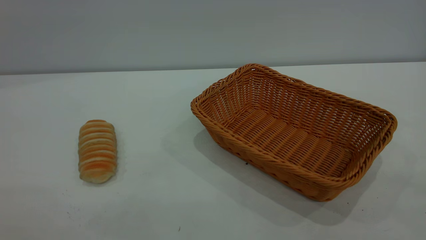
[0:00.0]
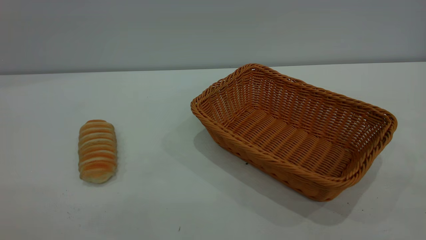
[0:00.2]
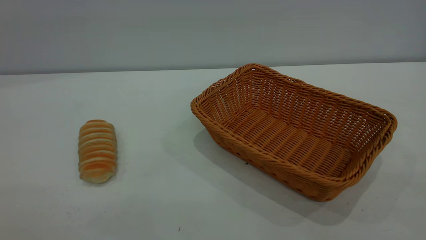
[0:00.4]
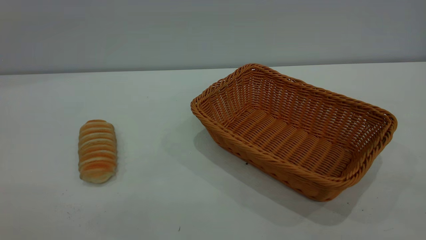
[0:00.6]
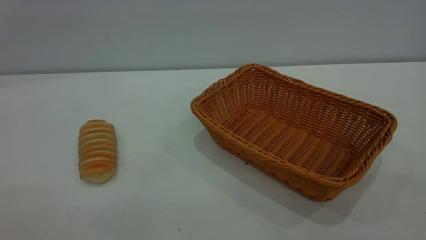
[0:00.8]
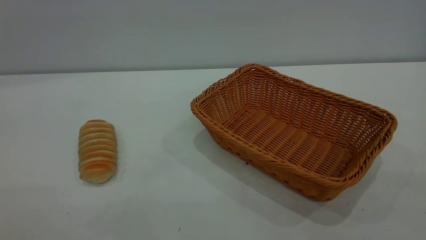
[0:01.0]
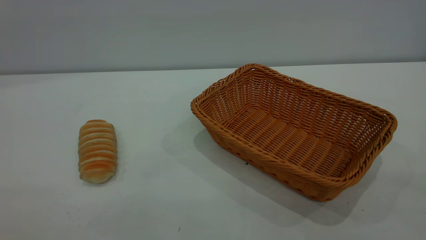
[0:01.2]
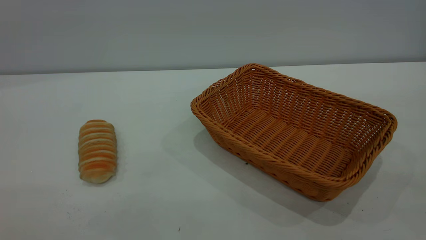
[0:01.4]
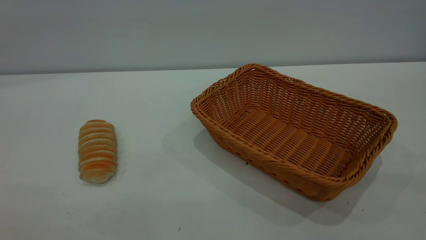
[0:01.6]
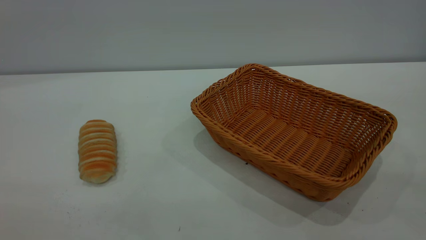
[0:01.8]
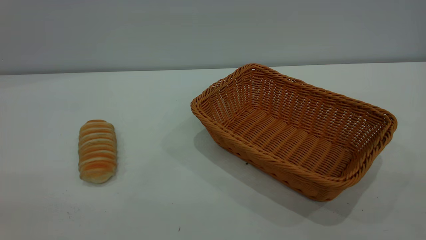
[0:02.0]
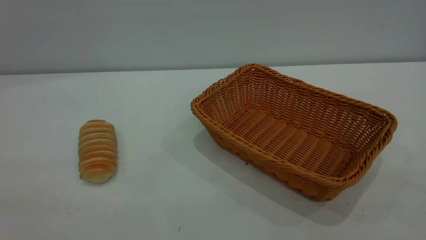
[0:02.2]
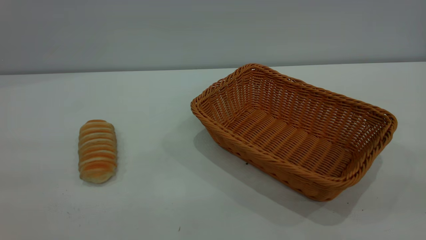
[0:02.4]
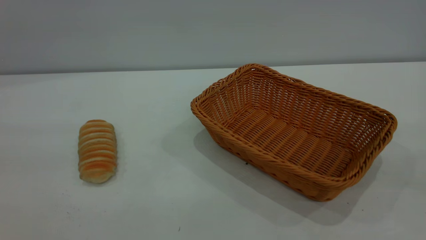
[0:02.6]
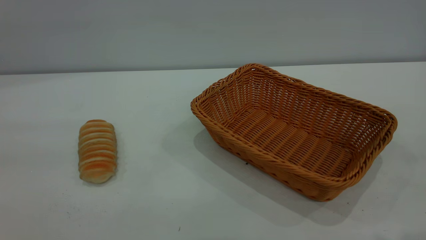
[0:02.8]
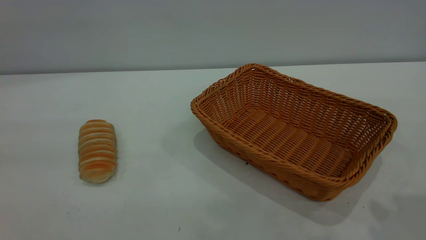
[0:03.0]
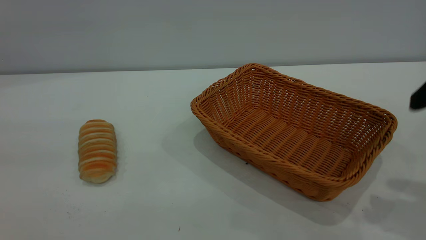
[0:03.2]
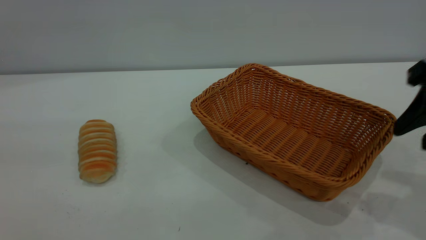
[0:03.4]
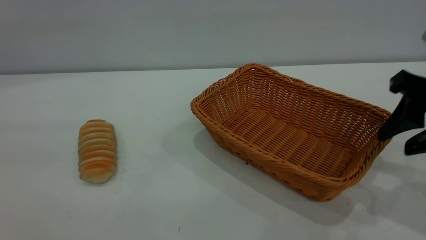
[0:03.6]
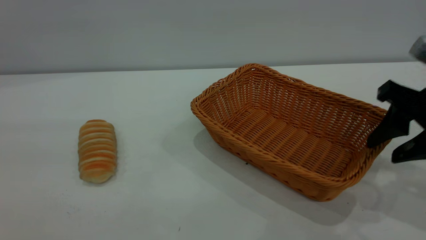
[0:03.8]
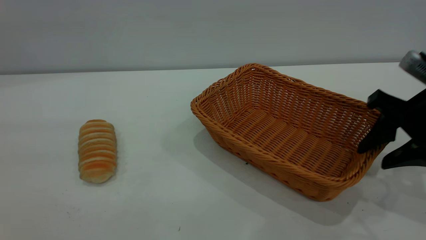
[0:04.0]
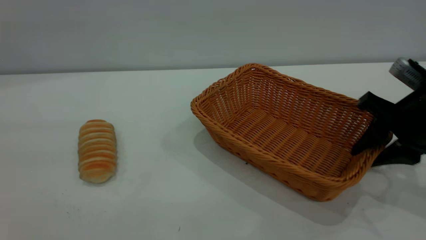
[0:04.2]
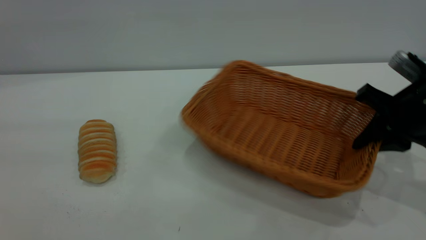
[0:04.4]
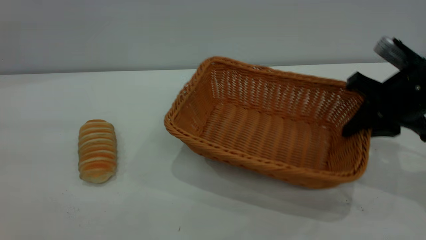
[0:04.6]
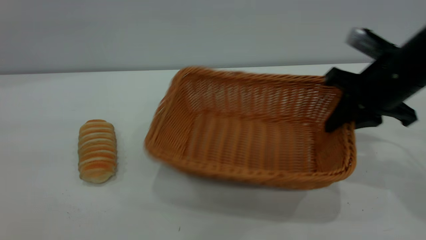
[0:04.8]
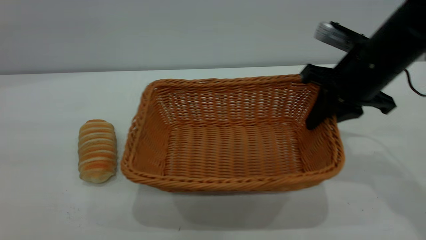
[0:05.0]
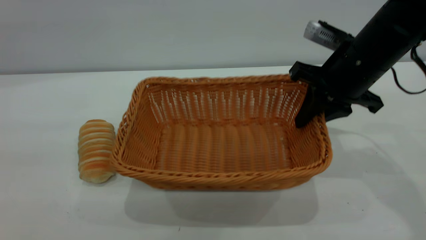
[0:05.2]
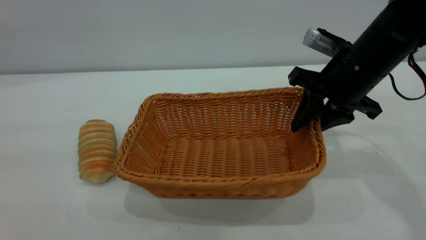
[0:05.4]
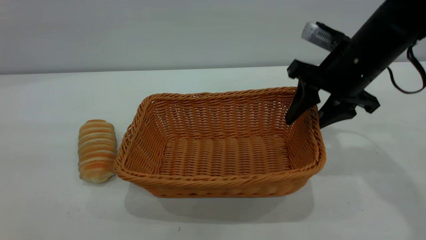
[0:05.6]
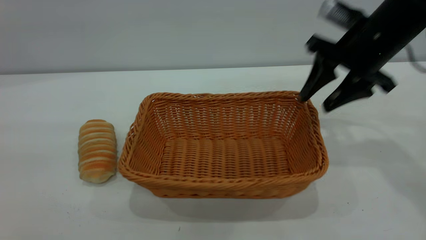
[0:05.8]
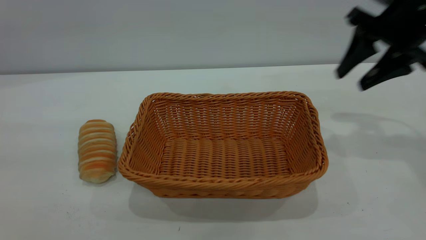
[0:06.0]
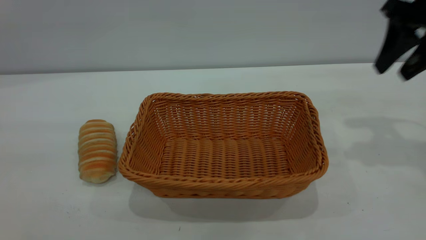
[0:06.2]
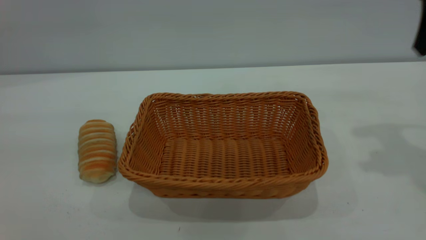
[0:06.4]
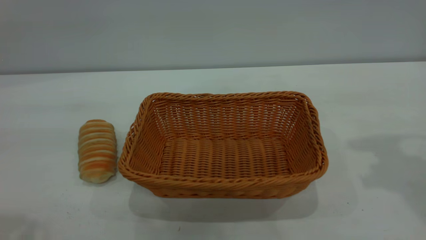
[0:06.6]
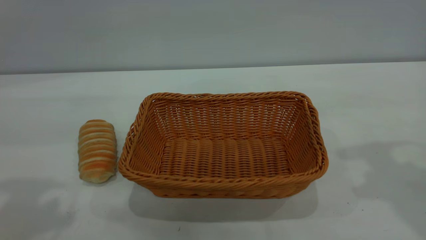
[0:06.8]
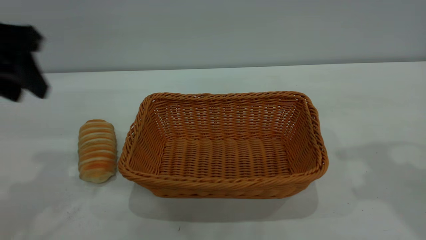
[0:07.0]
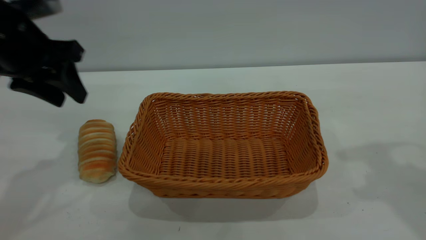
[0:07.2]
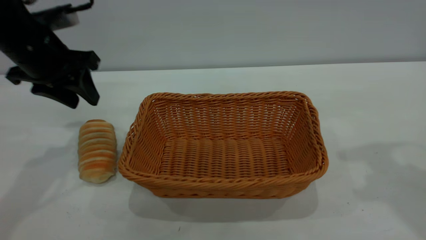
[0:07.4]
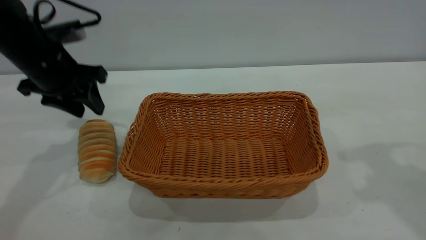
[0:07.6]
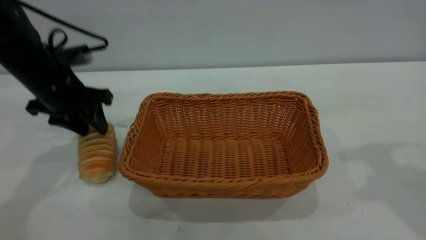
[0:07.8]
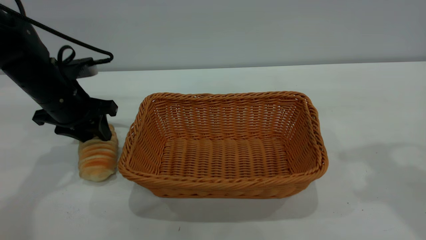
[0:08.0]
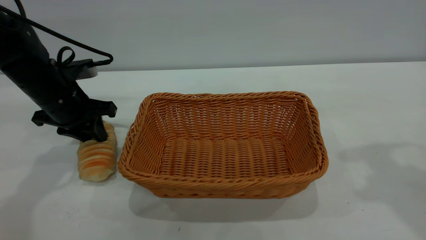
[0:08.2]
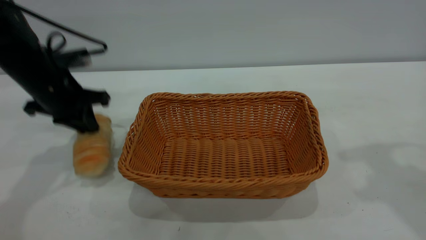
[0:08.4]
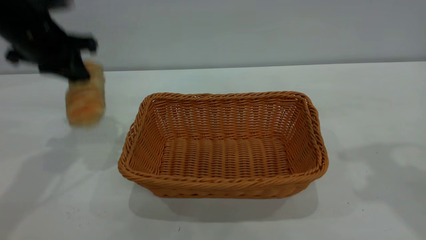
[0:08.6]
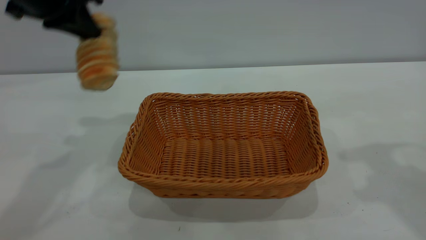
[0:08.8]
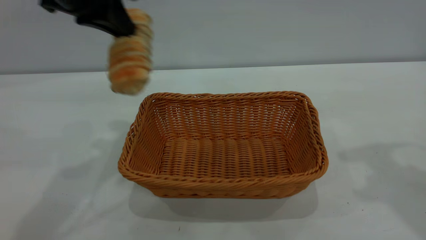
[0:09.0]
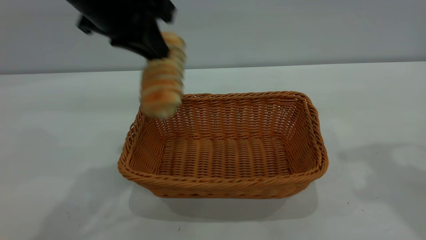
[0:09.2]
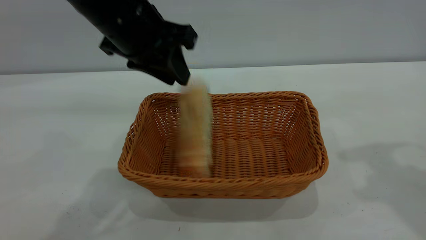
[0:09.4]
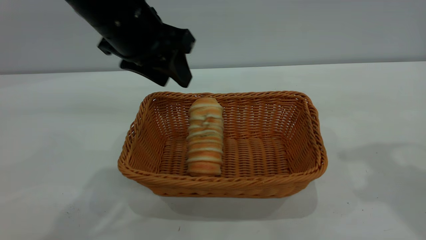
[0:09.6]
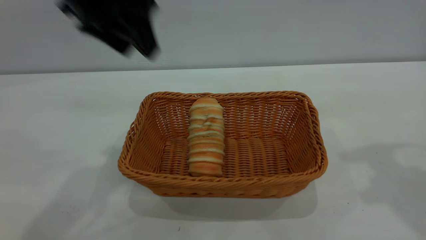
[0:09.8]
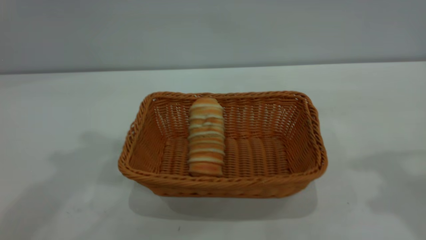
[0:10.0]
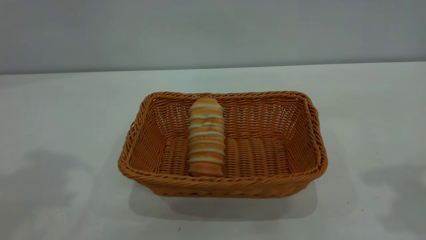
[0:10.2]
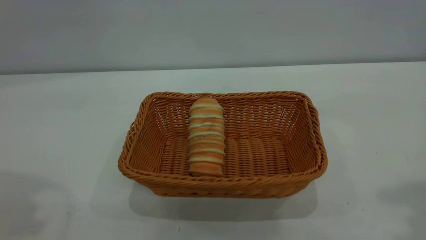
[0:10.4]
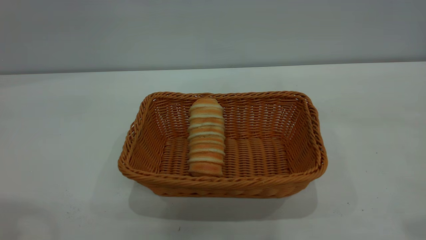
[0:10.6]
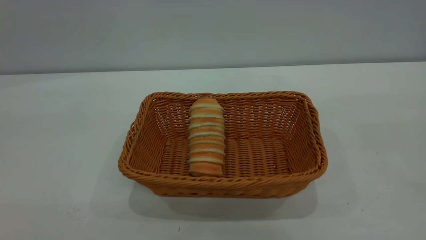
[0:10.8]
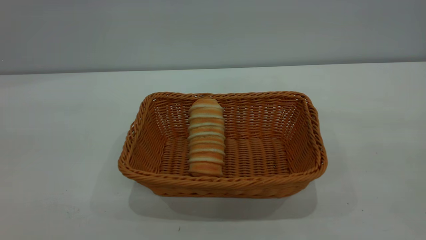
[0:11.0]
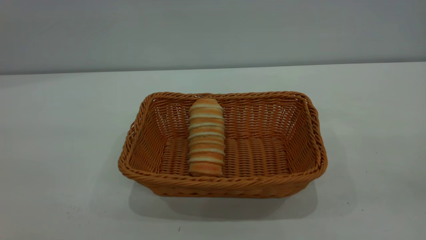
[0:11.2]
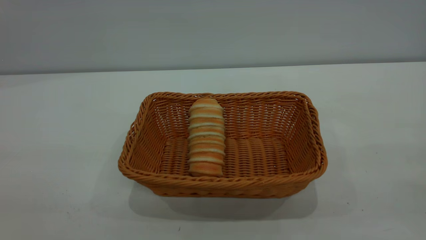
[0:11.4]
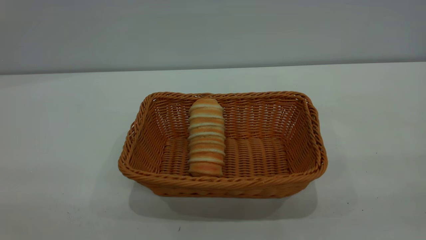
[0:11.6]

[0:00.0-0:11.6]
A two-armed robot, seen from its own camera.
Task of the whole recording: One hand grasps the yellow basket and places it in the middle of the table, while the other hand picks up the long bread and puts it into the yellow basket.
Step, 0:00.0 to 0:05.8: Move the basket to the center of view.
Step, 0:08.6 to 0:09.6: place the bread into the basket.
0:00.0 to 0:01.4: Both grippers stay put.
0:02.8 to 0:04.4: The right gripper goes about 25 cm downward and forward, and closes up.
0:04.4 to 0:05.8: The right gripper moves forward and upward, about 10 cm, and opens.
0:05.8 to 0:07.2: The left gripper shifts about 35 cm forward and downward. The right gripper heads upward and backward, covering some 15 cm.
0:07.2 to 0:08.8: The left gripper heads upward, covering roughly 5 cm, and closes.
0:08.8 to 0:10.2: The right gripper goes roughly 10 cm upward and backward. Meanwhile the left gripper travels upward and backward by approximately 20 cm, and opens its fingers.
